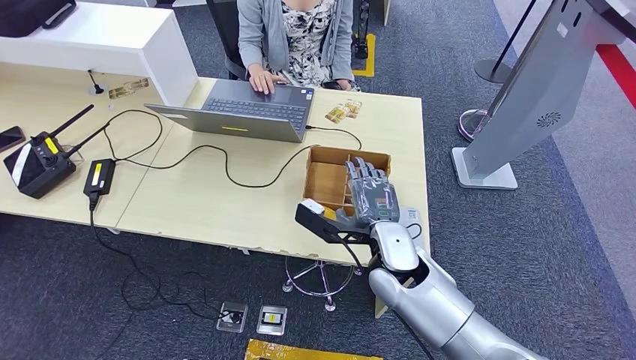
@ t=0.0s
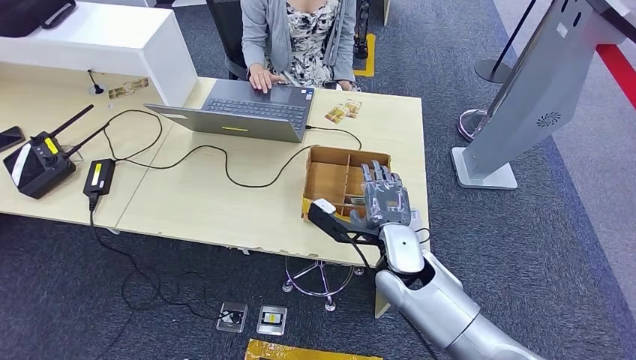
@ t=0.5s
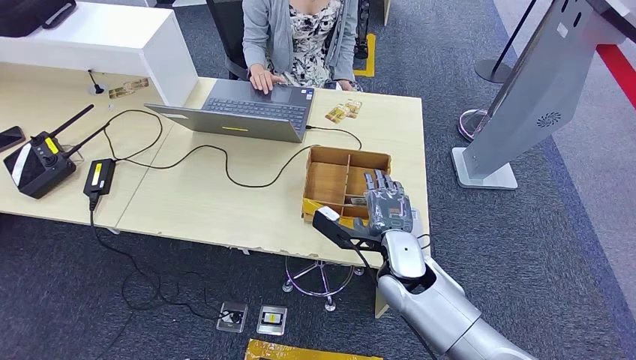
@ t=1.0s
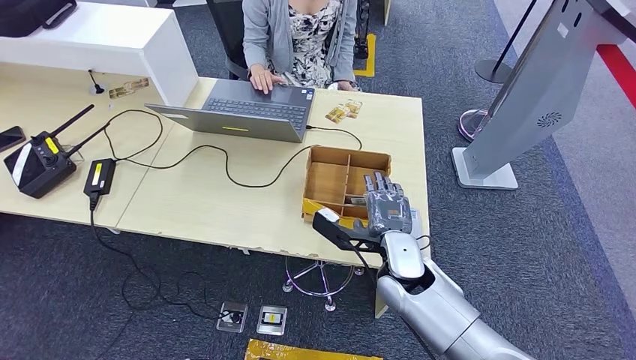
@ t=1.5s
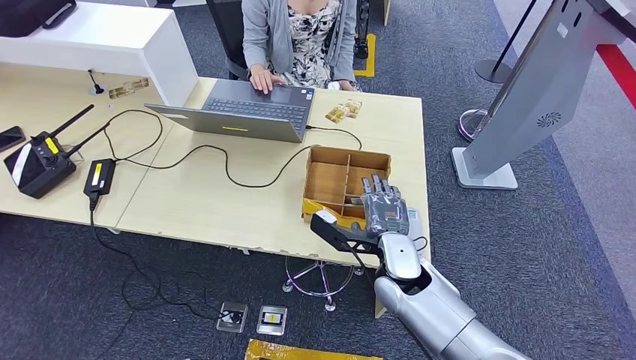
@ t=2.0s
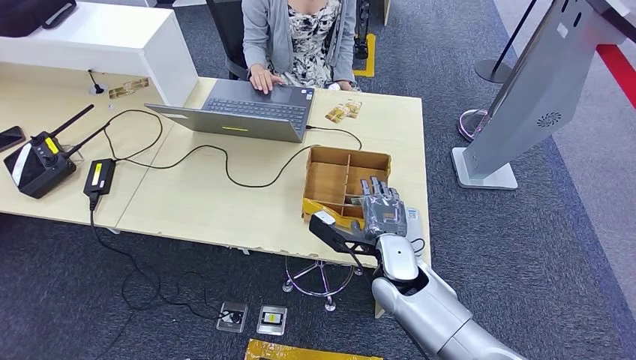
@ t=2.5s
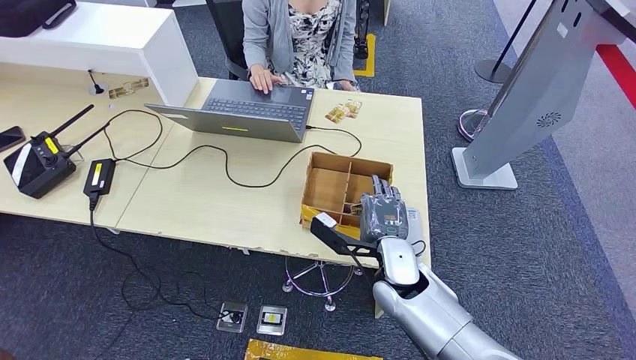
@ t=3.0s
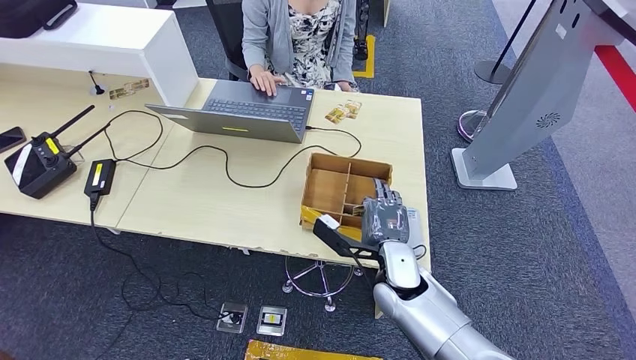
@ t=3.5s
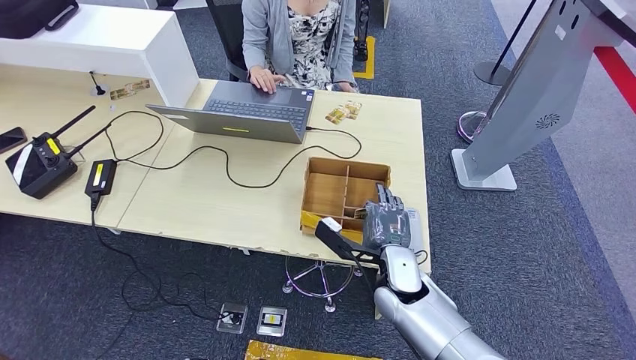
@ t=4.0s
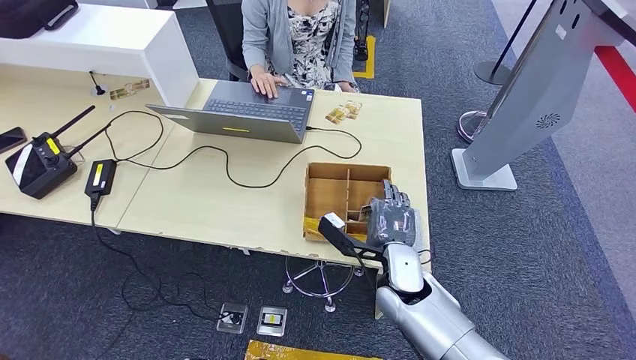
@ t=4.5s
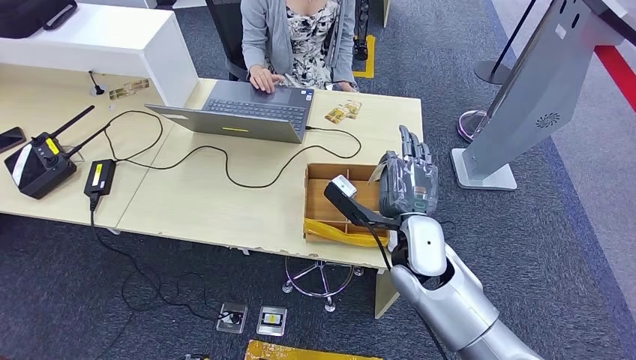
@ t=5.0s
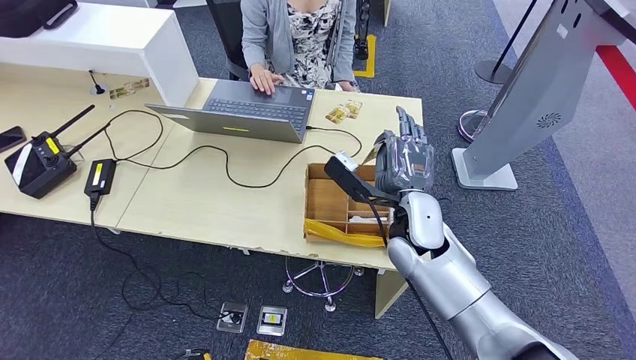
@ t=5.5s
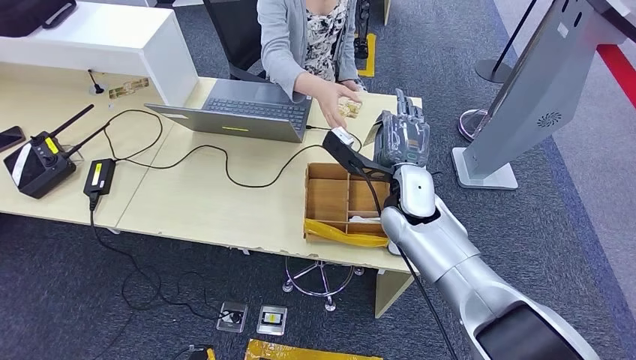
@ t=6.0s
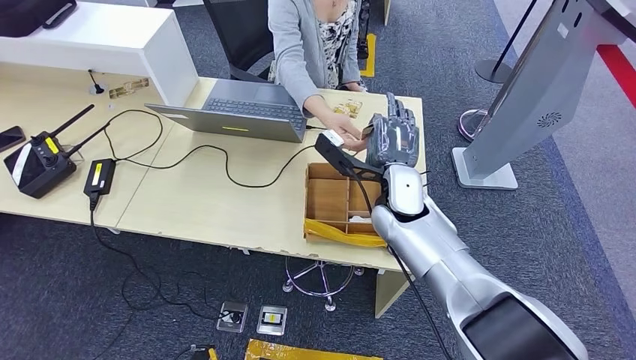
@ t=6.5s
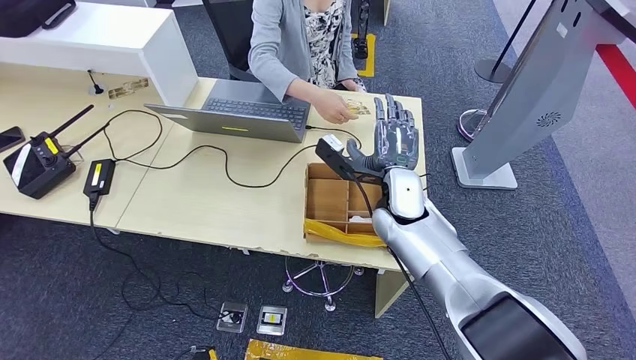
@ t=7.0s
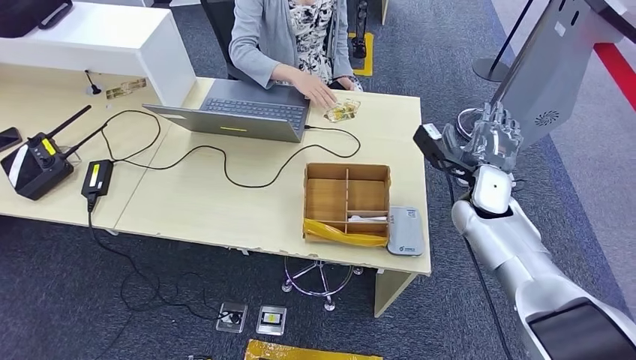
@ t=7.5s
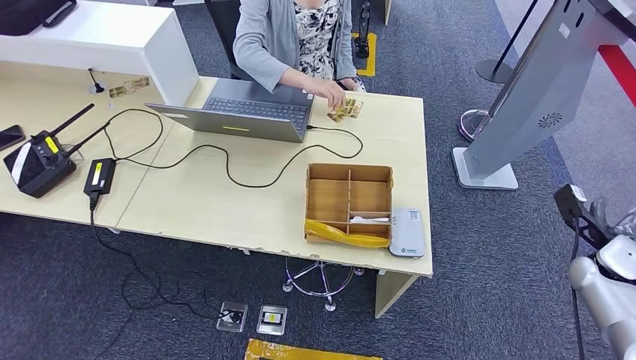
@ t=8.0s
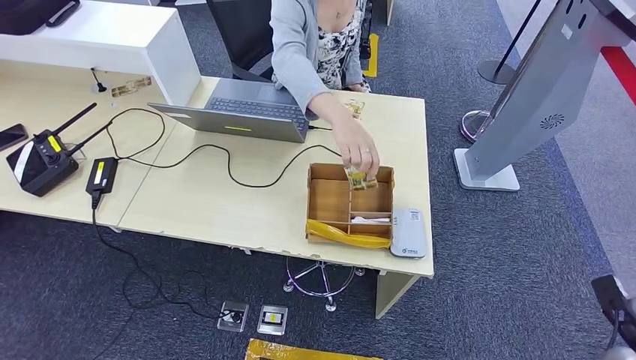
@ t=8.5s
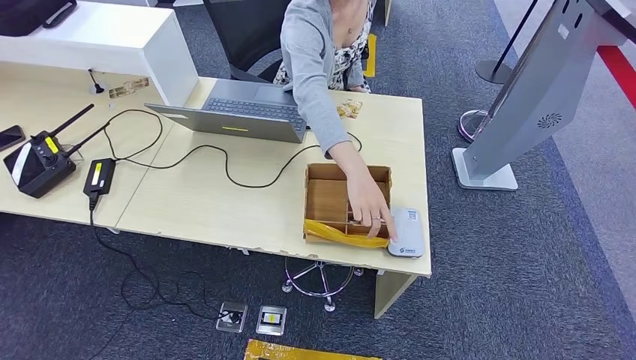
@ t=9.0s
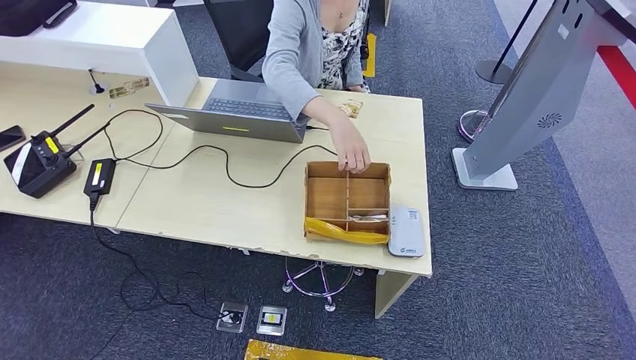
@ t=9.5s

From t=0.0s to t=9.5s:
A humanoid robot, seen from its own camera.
Step, from t=0.0s to t=5.0s: Pick up the room key from the key card box.
Step, from t=5.5s to t=9.5s: Hand the room key to the person.
From t=0.0s to t=2.0s: The hands stay close to where they were, moving slightly.
From t=2.0s to t=4.0s: The hands stay close to where they were, moving slightly.
From t=4.0s to t=5.5s: The right hand is displaced upward and forward by about 10 cm.
From t=7.5s to t=9.5s: The right hand moves backward and downward, some 50 cm.
